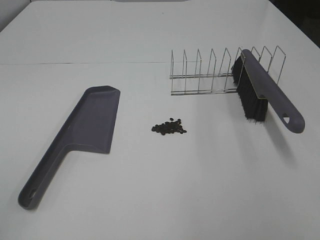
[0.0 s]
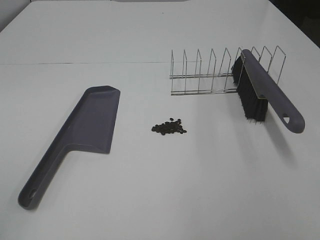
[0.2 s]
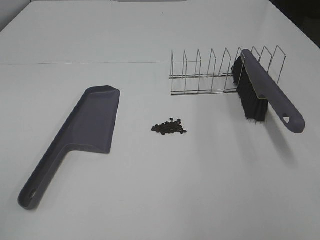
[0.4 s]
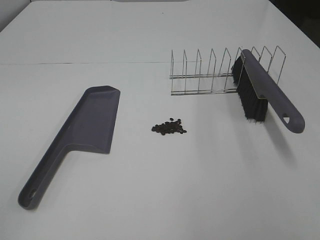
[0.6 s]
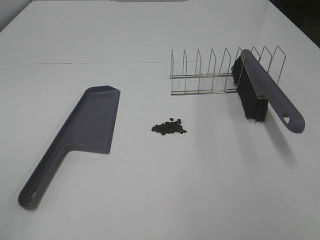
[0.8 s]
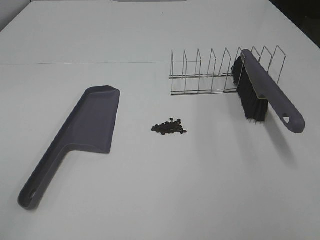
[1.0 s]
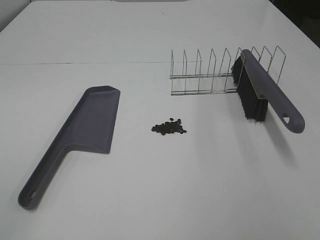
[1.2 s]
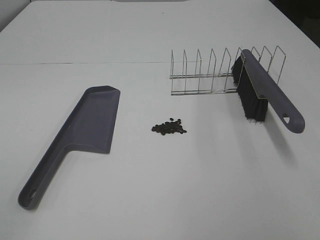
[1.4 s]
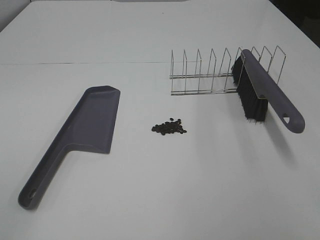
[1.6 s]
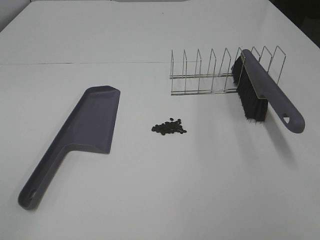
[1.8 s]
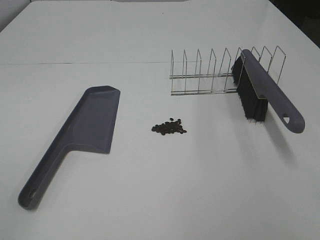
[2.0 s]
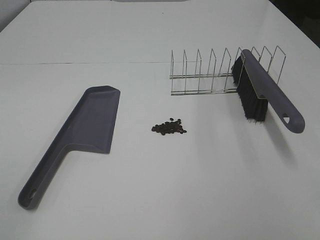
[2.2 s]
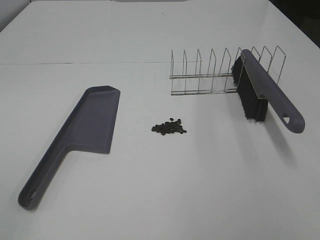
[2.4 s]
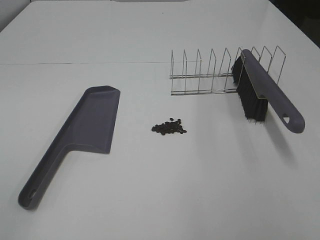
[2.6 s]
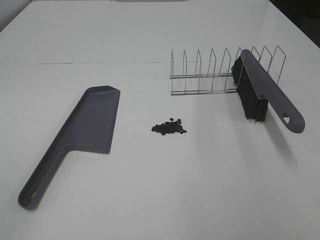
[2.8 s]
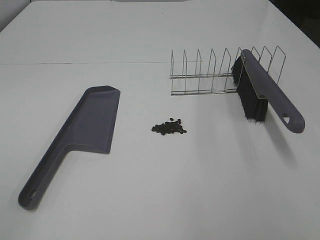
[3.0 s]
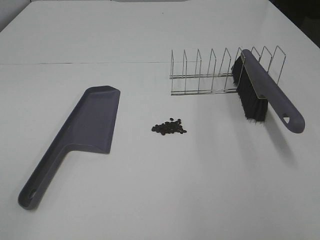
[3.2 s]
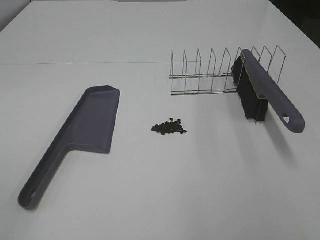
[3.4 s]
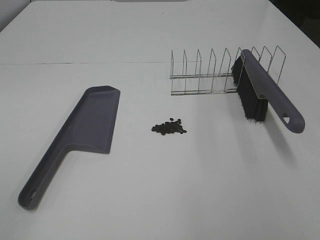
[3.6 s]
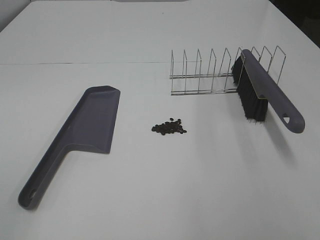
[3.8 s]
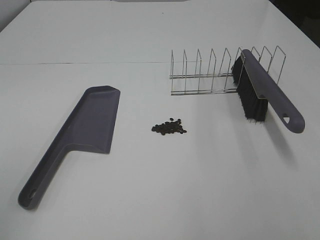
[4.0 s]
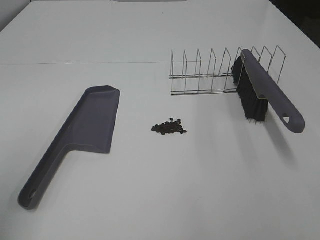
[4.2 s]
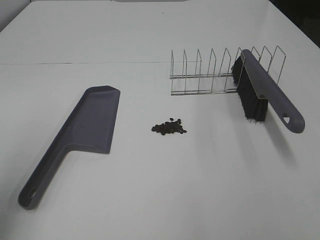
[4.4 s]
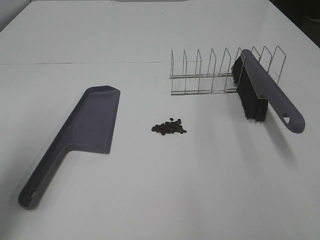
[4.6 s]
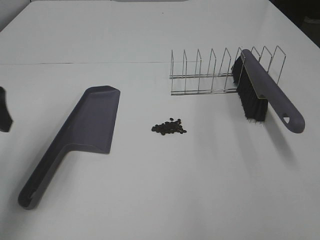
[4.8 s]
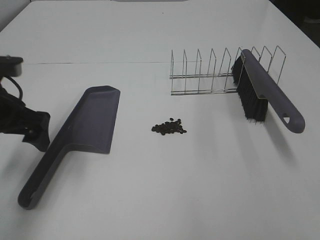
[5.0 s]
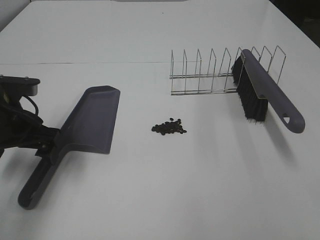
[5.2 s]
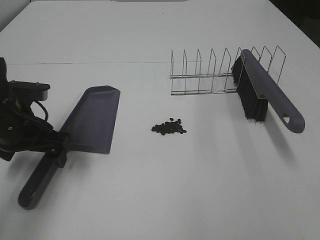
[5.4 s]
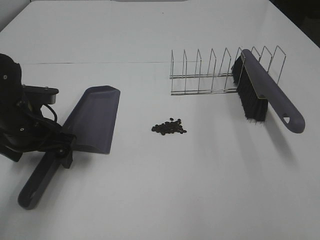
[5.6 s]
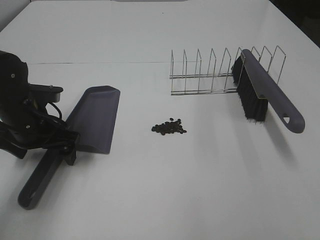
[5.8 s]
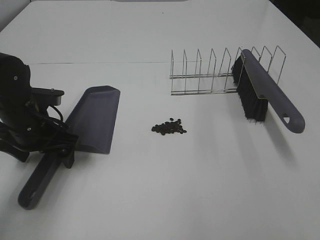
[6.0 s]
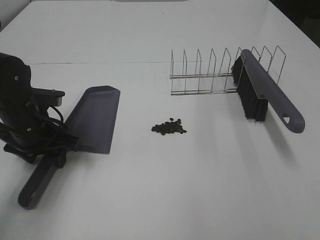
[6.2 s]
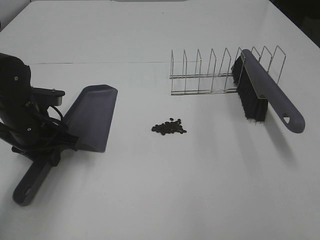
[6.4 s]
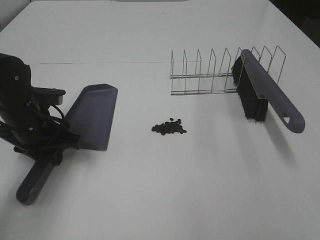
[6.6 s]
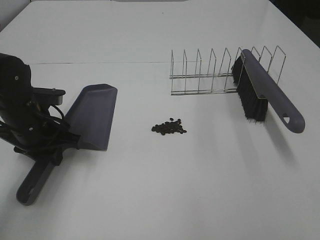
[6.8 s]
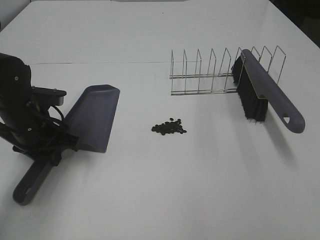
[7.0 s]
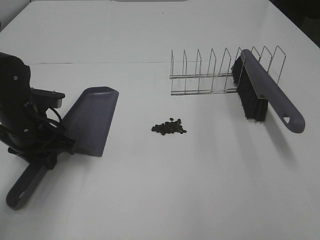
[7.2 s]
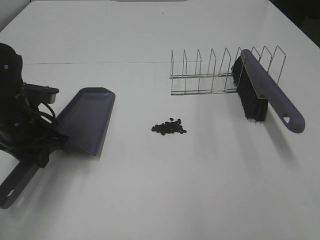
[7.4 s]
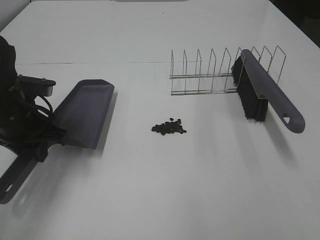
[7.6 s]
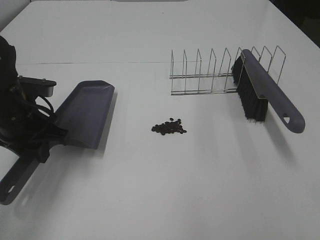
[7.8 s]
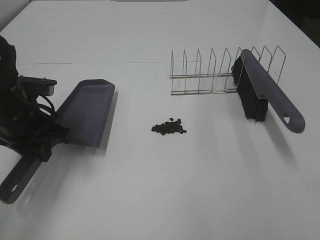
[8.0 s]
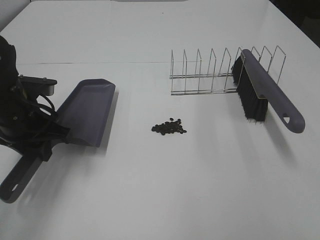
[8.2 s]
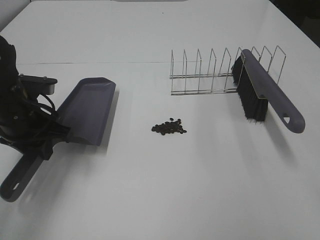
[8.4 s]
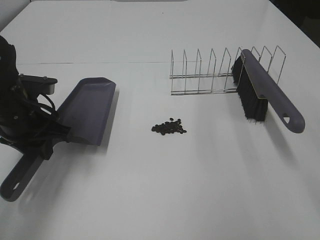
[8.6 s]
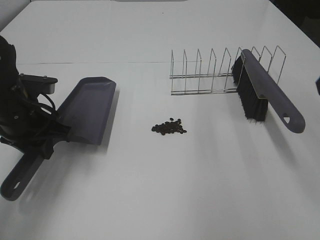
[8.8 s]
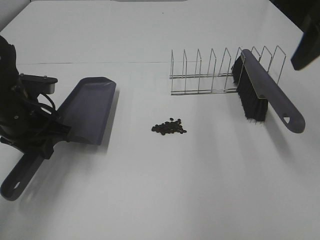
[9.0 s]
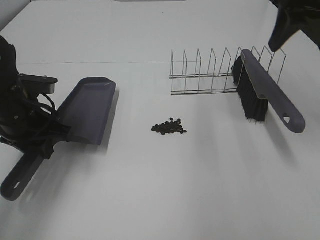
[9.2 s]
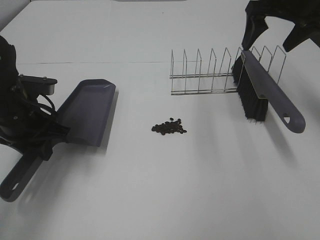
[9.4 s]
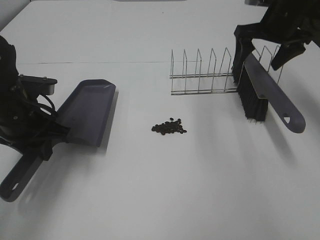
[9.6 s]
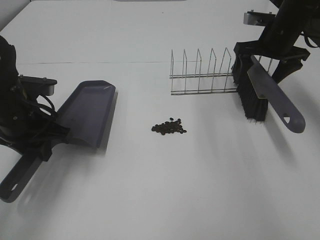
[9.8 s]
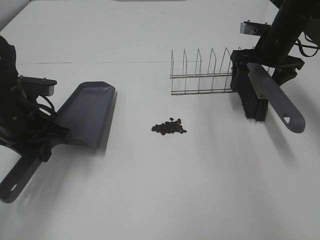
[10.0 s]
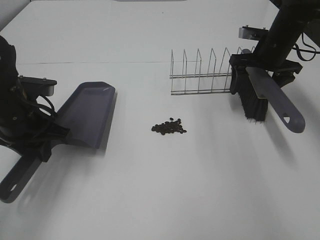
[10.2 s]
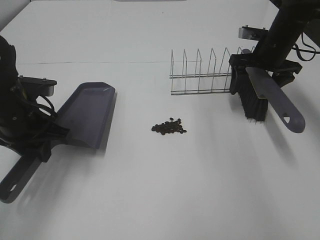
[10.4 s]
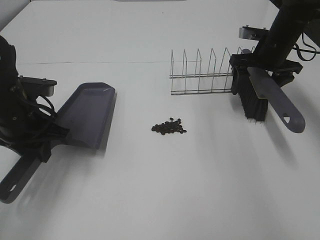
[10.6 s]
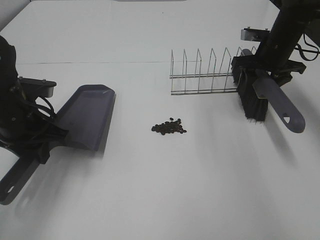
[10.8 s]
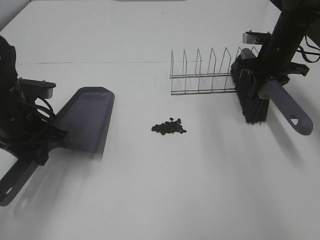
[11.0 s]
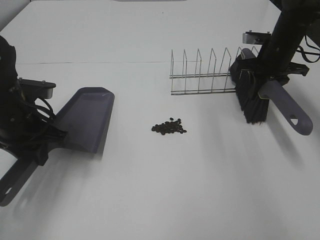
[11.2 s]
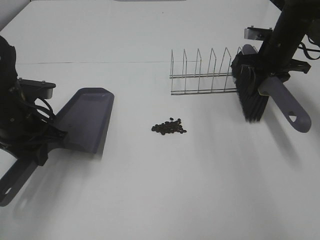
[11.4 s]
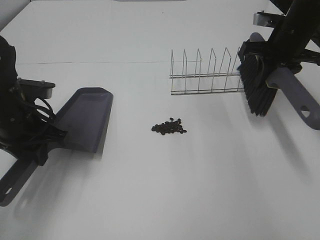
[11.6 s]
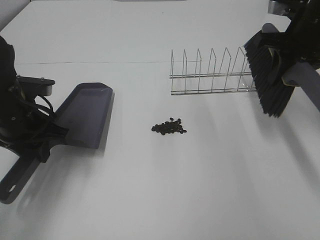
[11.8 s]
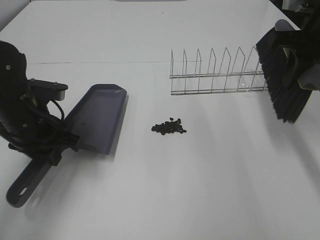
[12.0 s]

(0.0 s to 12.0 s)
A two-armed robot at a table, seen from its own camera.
Task of the whole recording: Sweep Coffee Bean.
Step, 0.0 s - 6.2 s: Left hand: grab the dustpan.
Step, 8.0 s - 11.0 s: Right hand:grab the broom.
3.0 s - 4.4 s: The left gripper heads forward, covering some 15 cm.
4.4 s - 6.0 s: The left gripper goes some 30 cm downward, forward and to the right.
6.0 s - 7.6 s: The left gripper closes up.
7.6 s - 9.0 s: The right gripper goes about 30 cm forward, and opens its fingers.
9.0 s - 10.4 s: The right gripper travels forward and downward by some 25 cm.
10.4 s - 12.0 s: The right gripper goes roughly 15 cm backward and upward, and closes up.

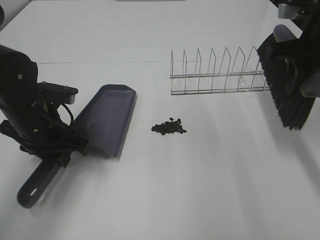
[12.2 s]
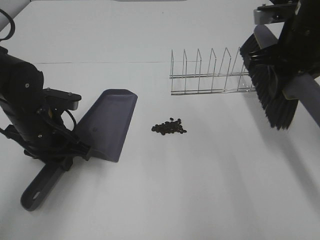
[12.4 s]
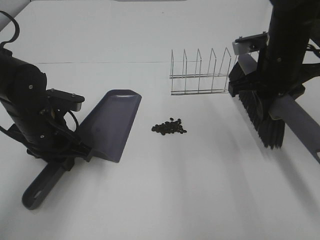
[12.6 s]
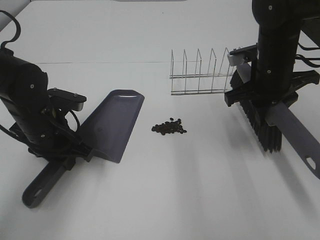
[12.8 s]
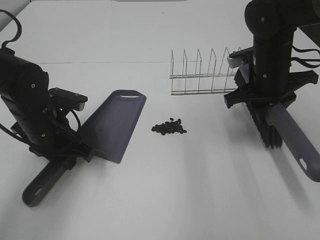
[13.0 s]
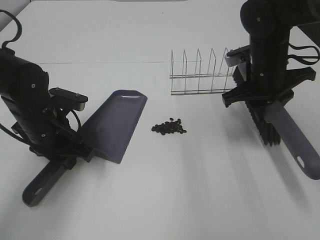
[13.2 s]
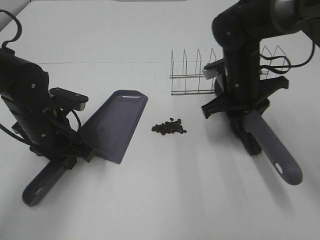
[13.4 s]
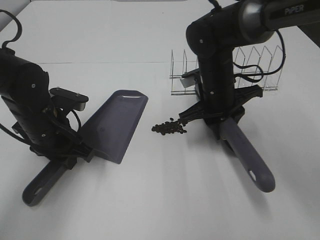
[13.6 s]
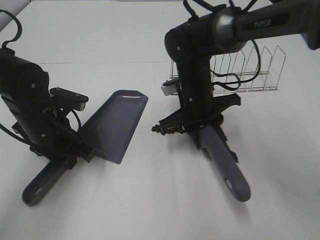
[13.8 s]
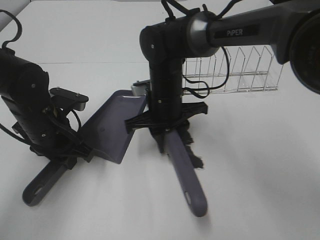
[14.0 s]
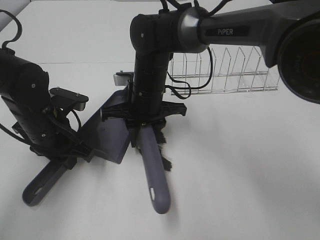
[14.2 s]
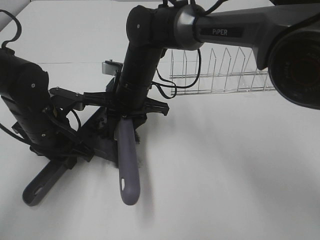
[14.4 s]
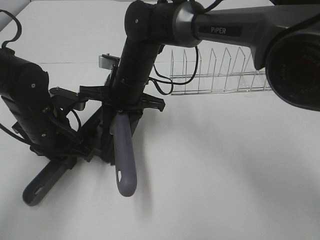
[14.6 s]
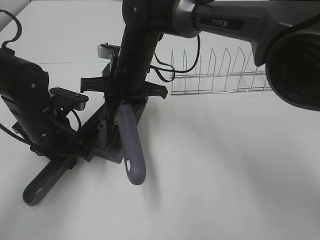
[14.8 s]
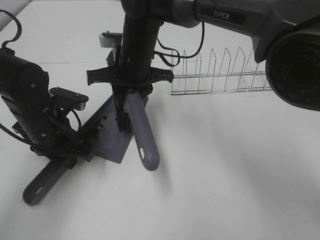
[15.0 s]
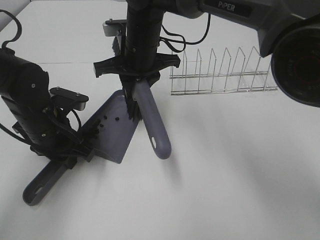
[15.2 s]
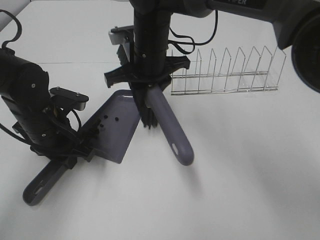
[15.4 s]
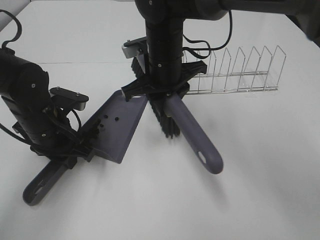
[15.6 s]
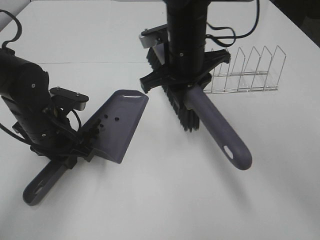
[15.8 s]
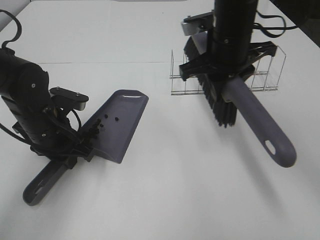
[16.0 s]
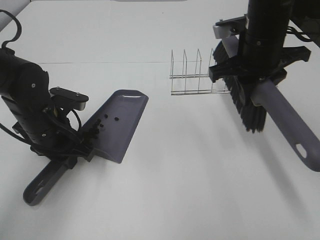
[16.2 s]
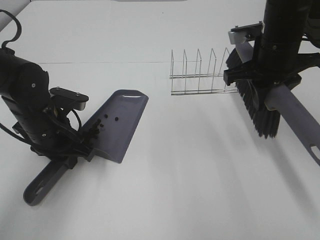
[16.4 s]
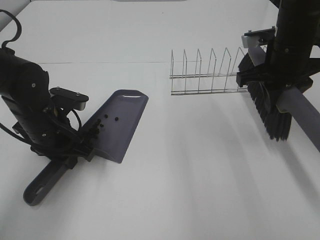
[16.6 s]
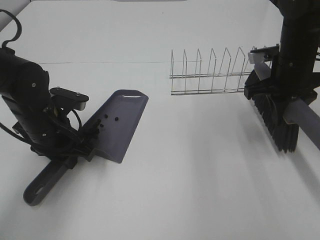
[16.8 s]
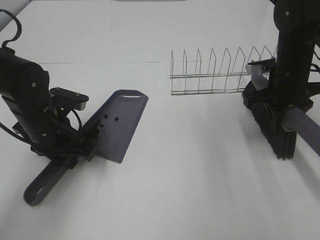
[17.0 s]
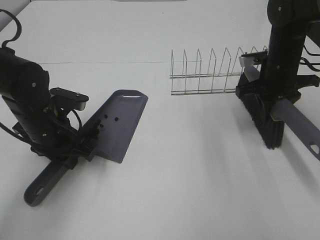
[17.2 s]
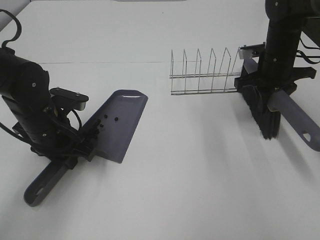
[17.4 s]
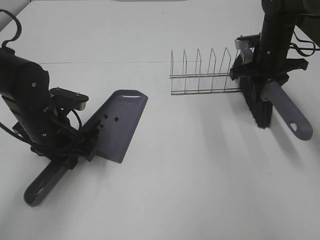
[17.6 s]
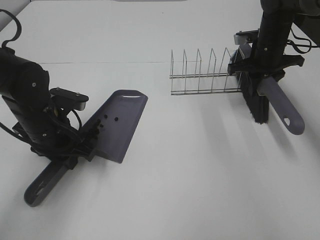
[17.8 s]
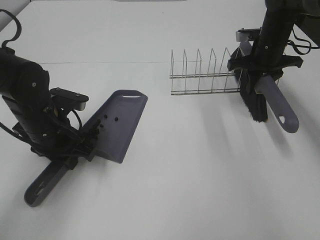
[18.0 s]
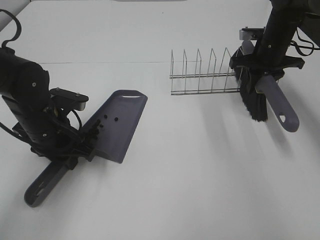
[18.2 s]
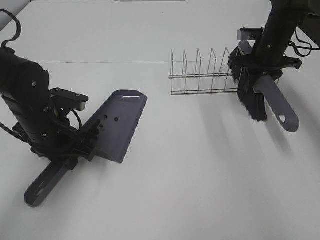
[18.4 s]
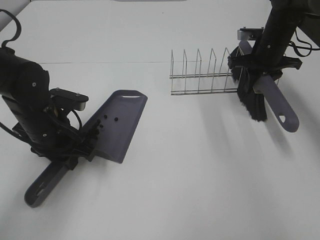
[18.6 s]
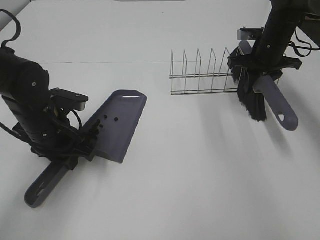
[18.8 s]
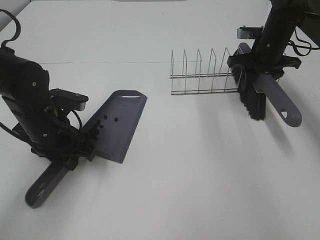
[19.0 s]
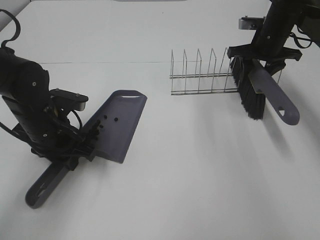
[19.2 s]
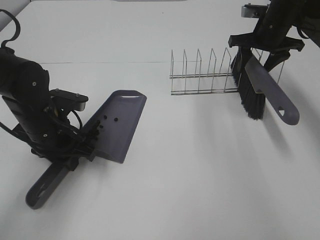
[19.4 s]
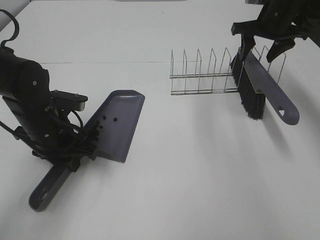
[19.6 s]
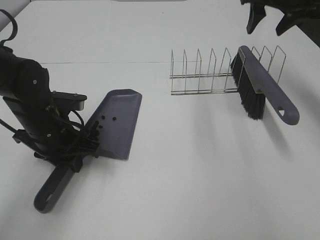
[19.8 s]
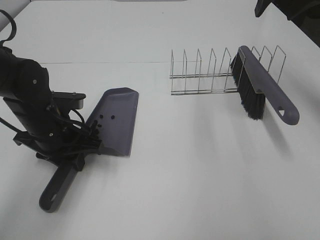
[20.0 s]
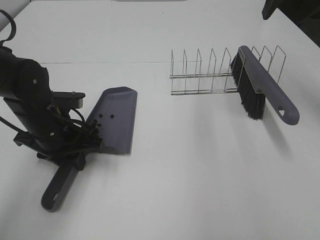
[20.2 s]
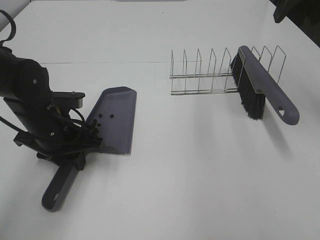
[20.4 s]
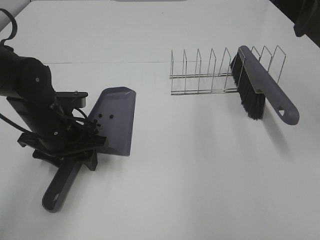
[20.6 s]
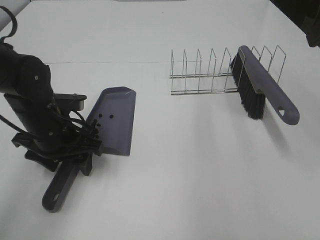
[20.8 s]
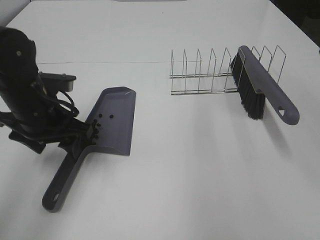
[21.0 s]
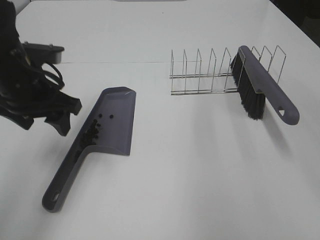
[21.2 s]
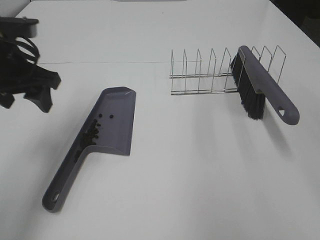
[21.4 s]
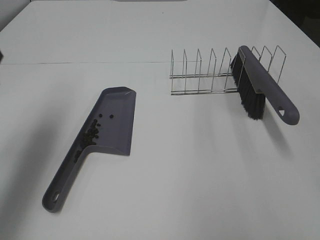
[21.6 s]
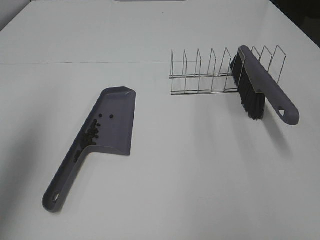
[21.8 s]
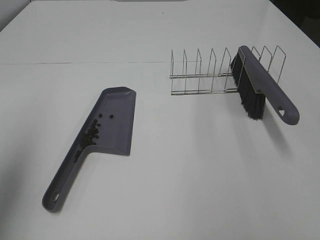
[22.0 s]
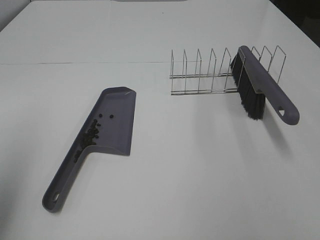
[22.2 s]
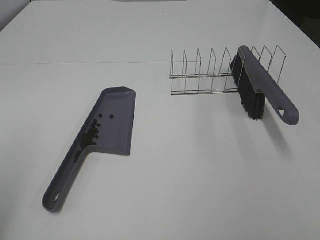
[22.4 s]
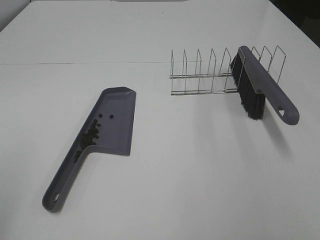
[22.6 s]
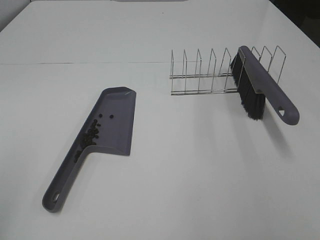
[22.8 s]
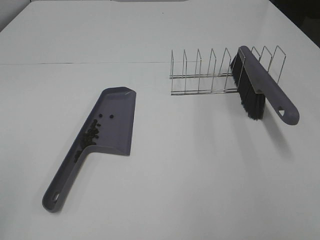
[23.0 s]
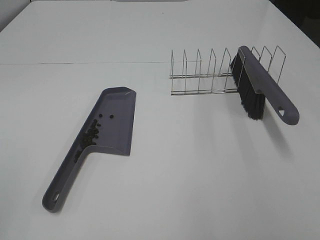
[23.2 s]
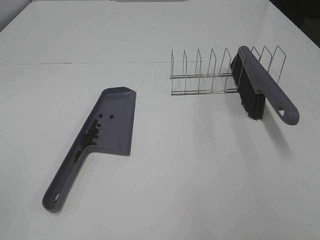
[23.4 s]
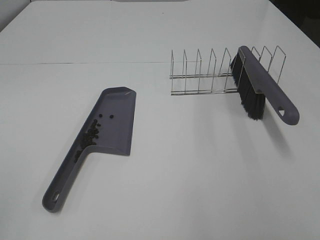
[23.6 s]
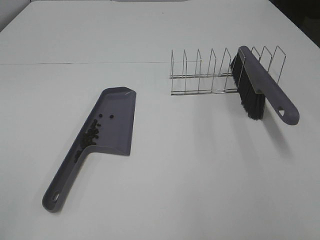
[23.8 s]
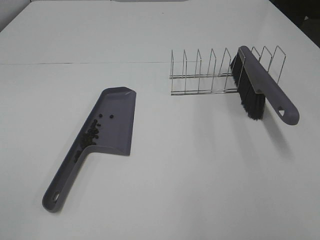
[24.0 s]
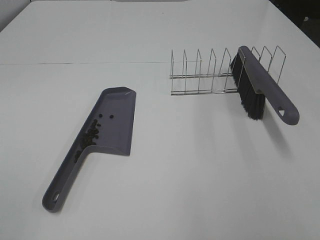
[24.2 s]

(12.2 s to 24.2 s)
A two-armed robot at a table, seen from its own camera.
Task of the whole recording: Sweep Coffee Bean.
Step, 12.2 s - 15.0 s: Right hand:sweep the coffee beans into the dustpan.
Step, 15.2 s - 19.4 s: Right hand:place the broom on the rack.
12.2 s - 13.8 s: The right gripper travels to the left and downward by approximately 25 cm.
13.8 s - 15.2 s: The right gripper heads to the left and upward, covering roughly 15 cm.
15.2 s - 16.6 s: The right gripper shifts roughly 25 cm to the right.
16.6 s - 18.2 s: The right gripper shifts some 15 cm forward and downward.
18.2 s - 19.8 s: The right gripper travels upward by roughly 15 cm, and opens.
19.8 s - 21.2 s: The right gripper goes approximately 30 cm backward. Meanwhile the left gripper travels upward by roughly 10 cm, and opens.
21.2 s - 22.6 s: The left gripper shifts roughly 30 cm backward and to the left.
